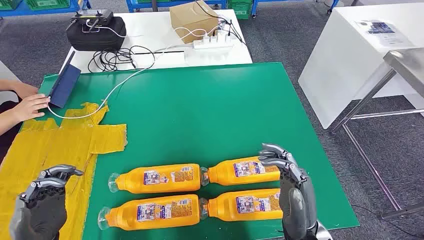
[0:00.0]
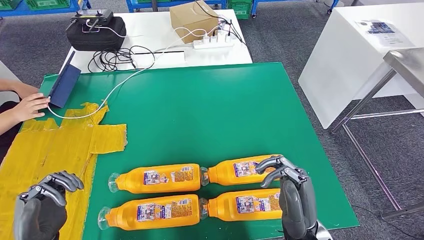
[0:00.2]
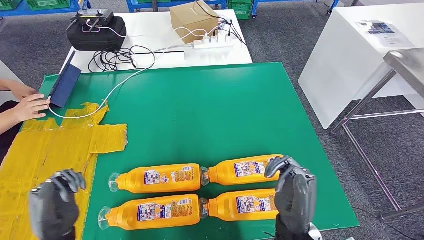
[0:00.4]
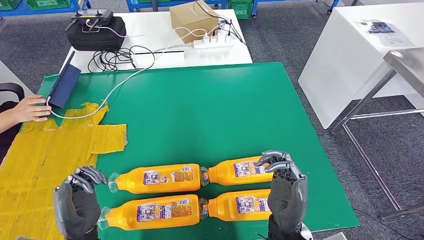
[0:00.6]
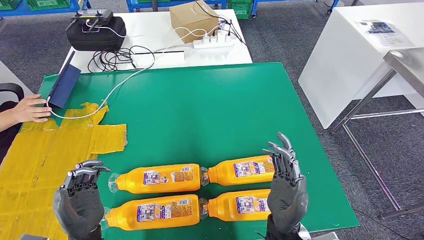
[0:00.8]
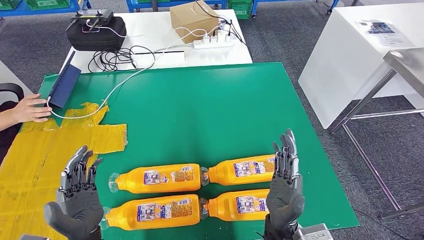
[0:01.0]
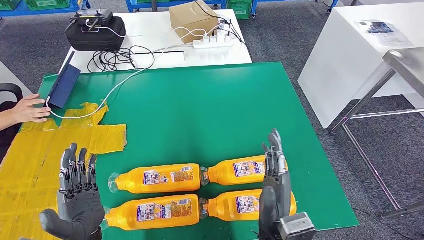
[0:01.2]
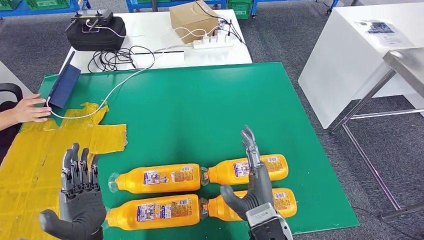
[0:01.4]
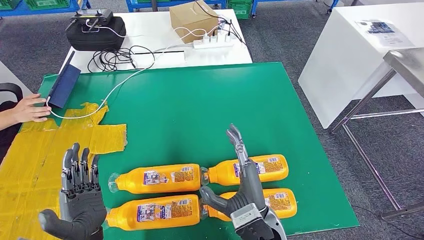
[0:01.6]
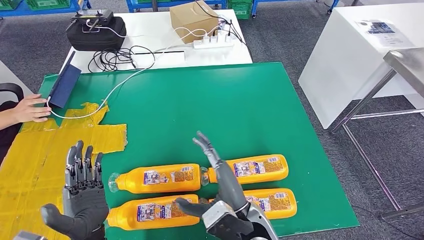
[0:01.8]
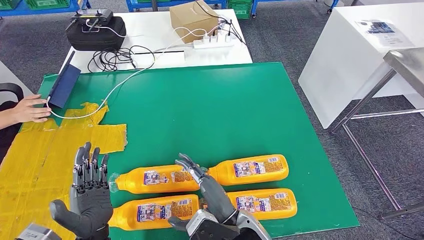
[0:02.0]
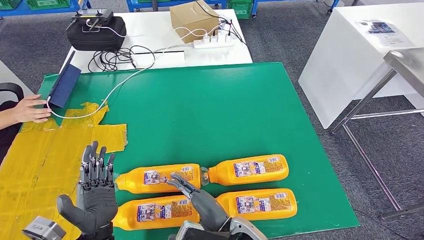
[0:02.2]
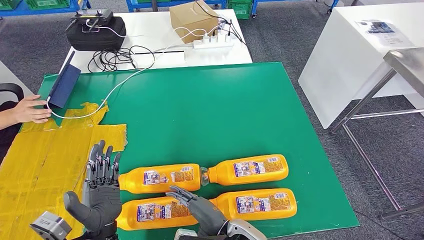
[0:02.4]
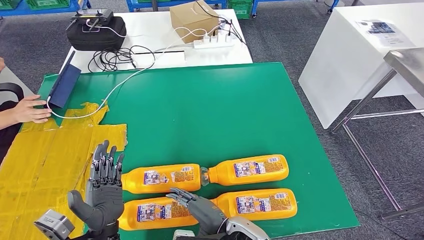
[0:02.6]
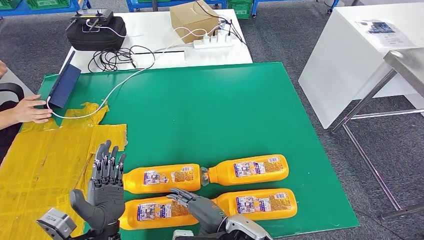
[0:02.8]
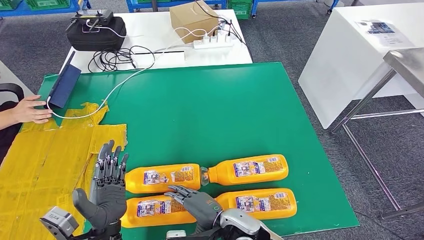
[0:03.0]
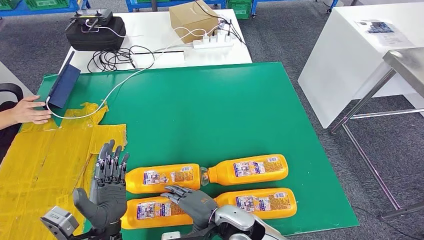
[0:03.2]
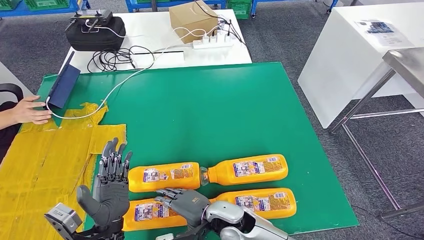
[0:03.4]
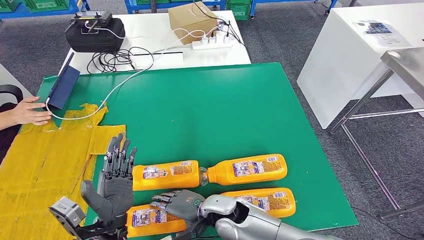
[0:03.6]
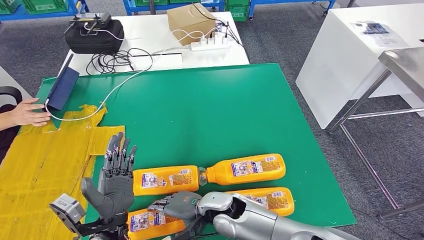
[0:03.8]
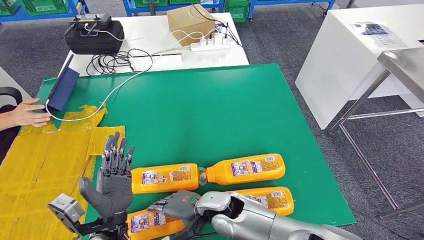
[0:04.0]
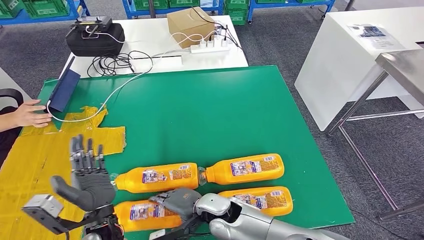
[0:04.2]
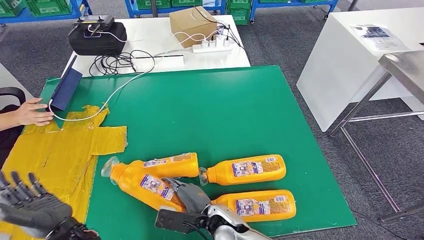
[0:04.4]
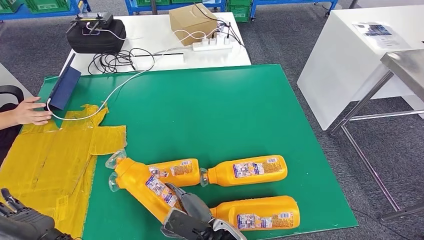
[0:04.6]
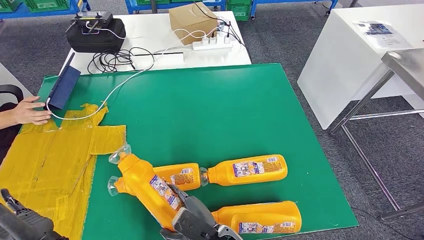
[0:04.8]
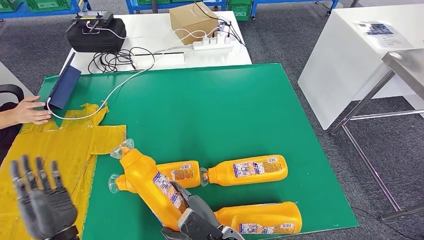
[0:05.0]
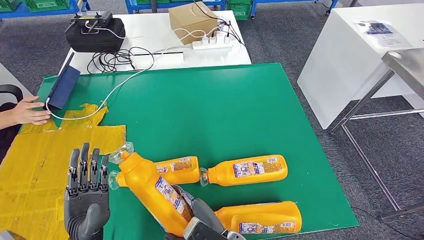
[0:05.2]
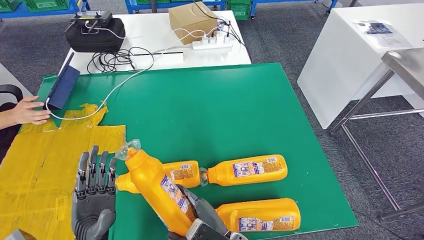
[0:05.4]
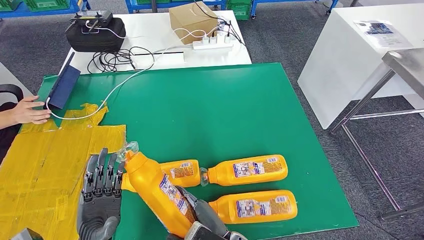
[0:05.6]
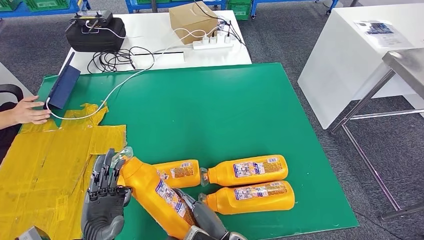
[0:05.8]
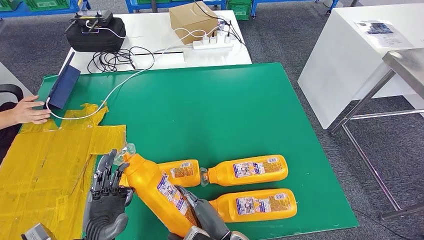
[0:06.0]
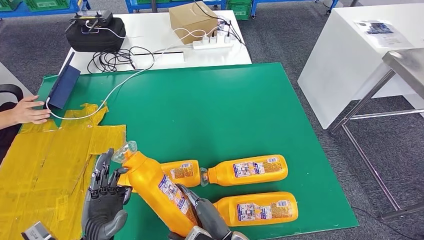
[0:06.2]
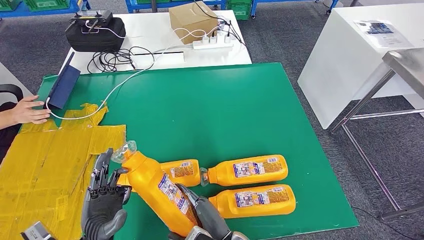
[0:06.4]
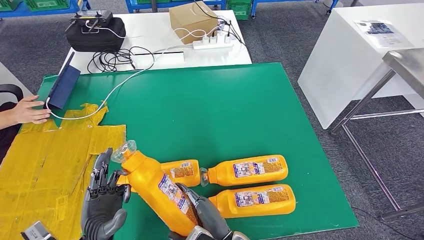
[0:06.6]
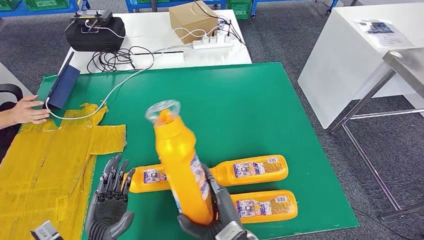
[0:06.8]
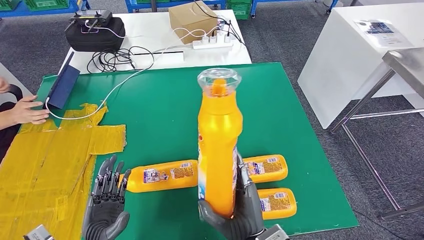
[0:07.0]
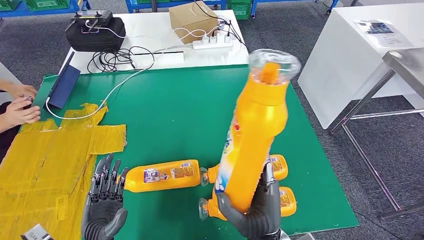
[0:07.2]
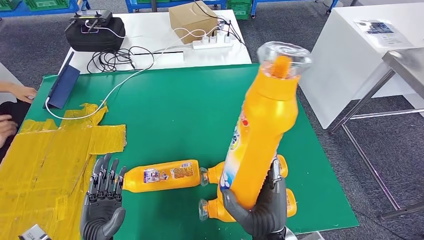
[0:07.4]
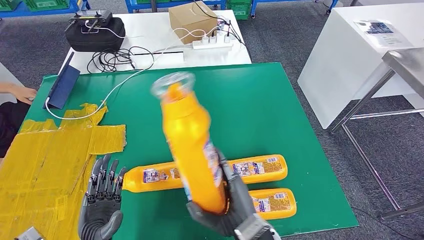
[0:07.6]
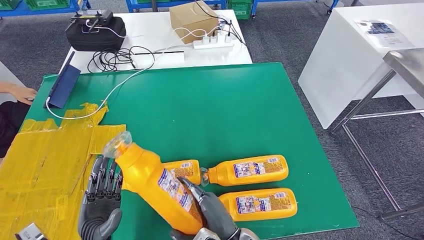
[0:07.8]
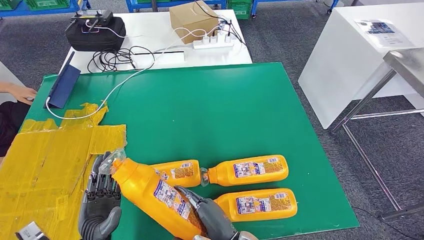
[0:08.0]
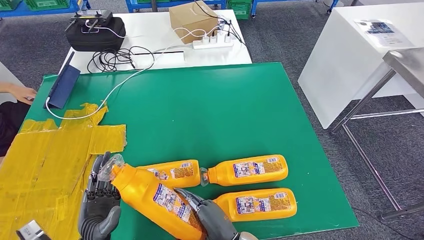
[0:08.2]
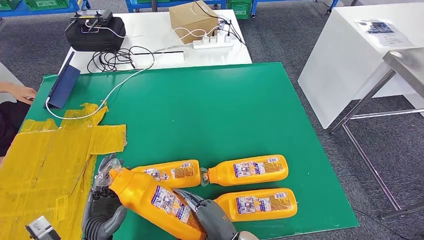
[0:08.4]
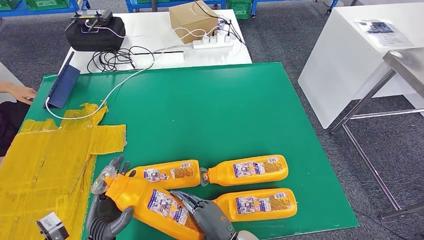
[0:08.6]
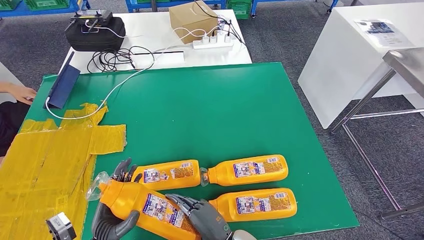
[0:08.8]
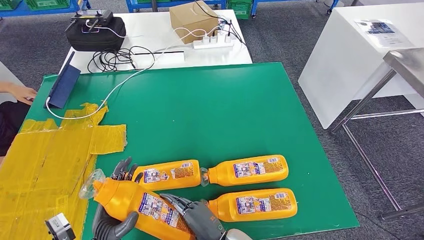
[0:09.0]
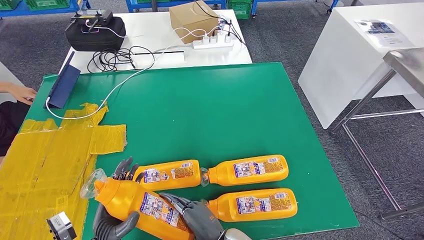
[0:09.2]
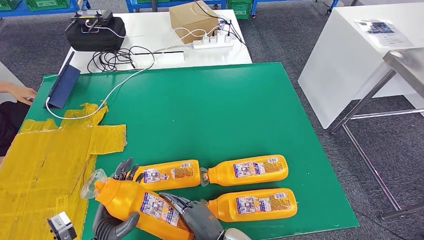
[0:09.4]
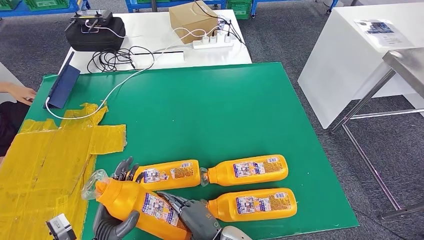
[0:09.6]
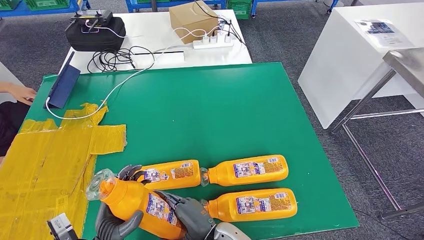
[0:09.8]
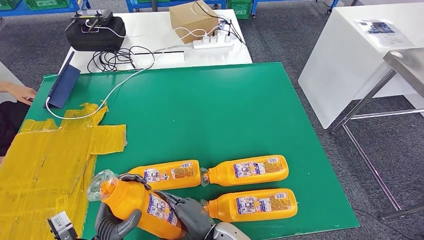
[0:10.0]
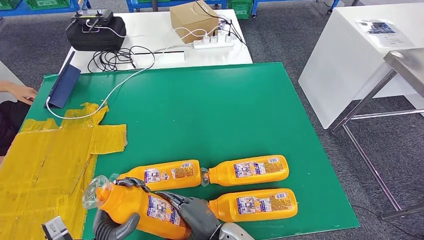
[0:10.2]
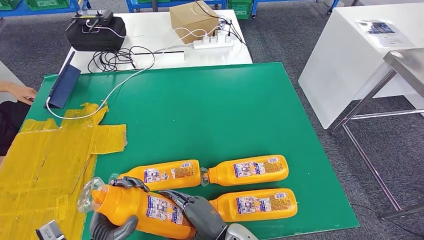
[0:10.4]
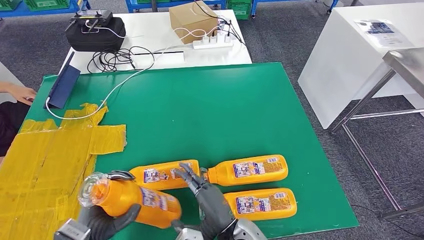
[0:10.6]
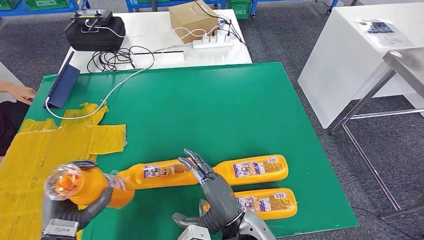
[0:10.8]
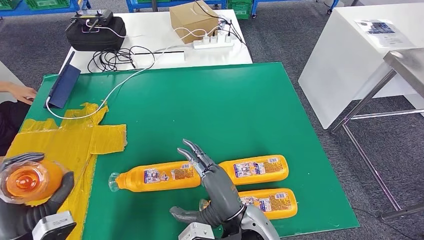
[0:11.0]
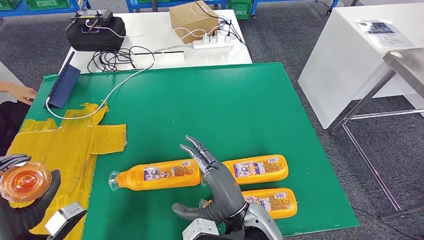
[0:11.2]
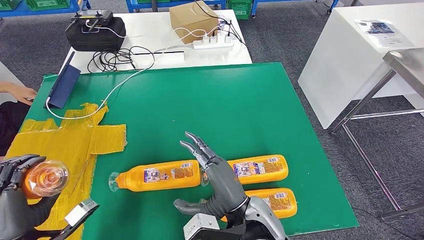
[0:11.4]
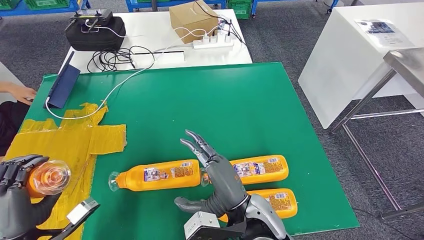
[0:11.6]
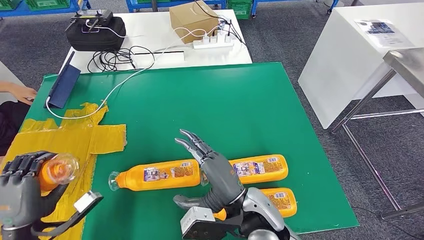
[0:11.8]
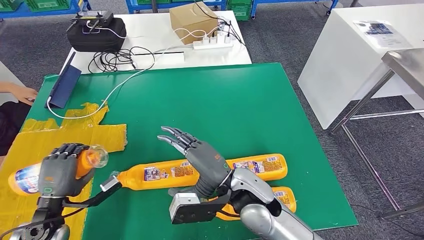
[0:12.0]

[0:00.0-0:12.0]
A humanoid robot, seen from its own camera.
Step, 0:00.0 to 0:07.2: Take the fast-moving consumer goods bottle from the table.
0:01.6 to 0:03.0: The right hand travels downward by roughly 5 cm.
0:06.0 to 0:07.6: The right hand heads upward, covering roughly 10 cm.
0:07.6 to 0:09.0: The right hand heads downward, covering roughly 5 cm.
0:09.0 to 0:10.4: The hands stay close to where they were, moving slightly.

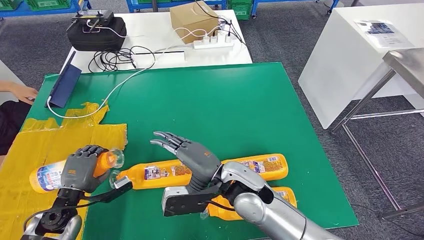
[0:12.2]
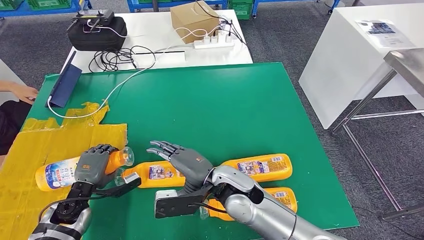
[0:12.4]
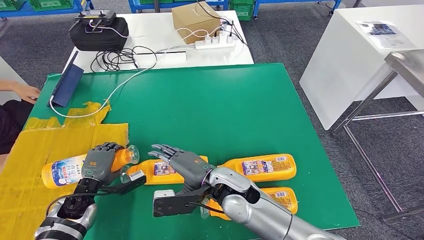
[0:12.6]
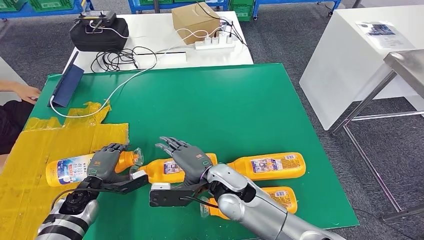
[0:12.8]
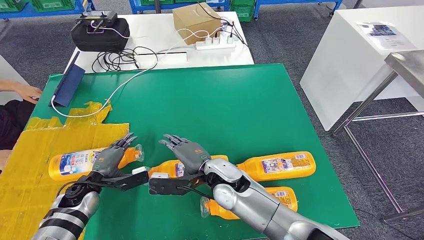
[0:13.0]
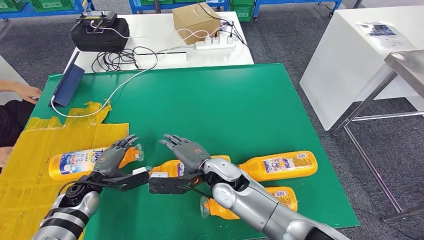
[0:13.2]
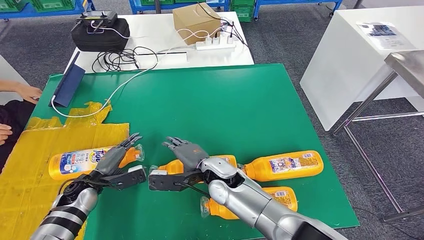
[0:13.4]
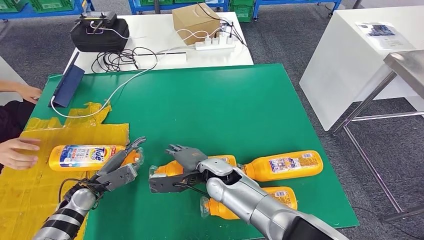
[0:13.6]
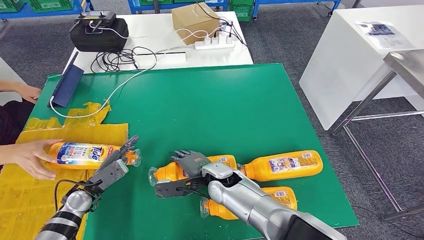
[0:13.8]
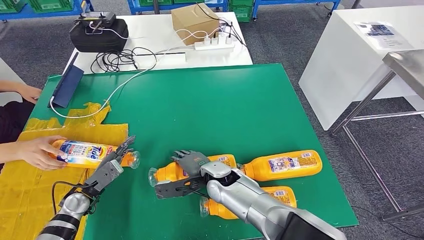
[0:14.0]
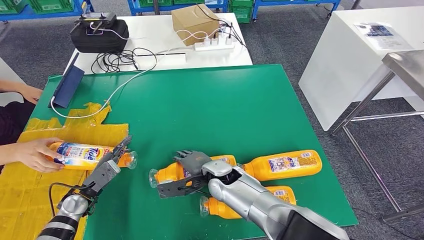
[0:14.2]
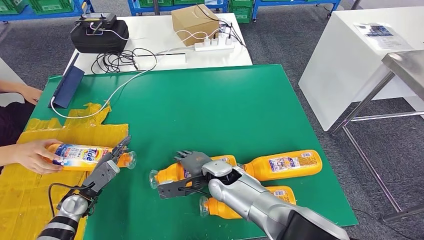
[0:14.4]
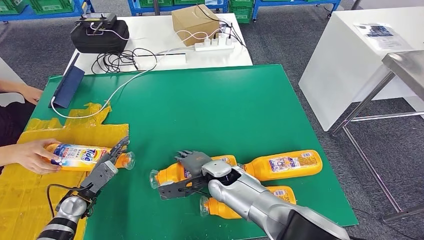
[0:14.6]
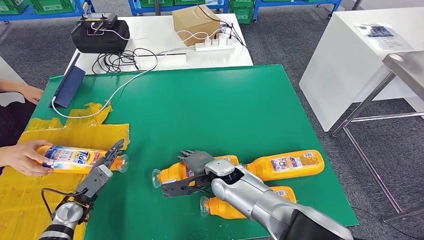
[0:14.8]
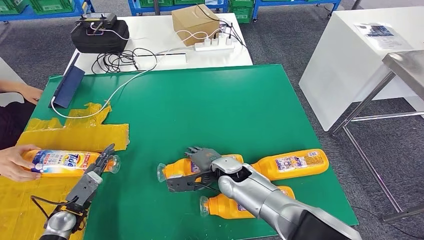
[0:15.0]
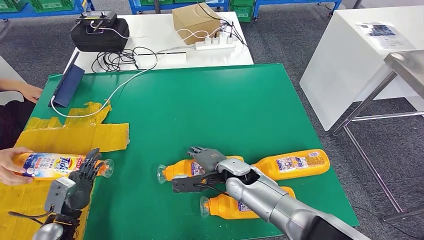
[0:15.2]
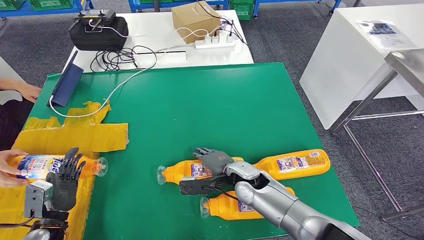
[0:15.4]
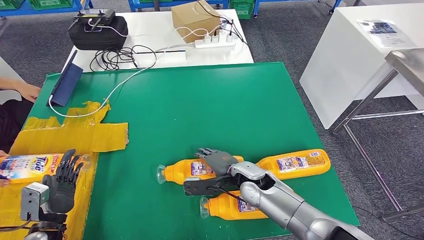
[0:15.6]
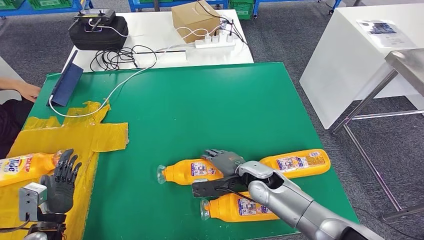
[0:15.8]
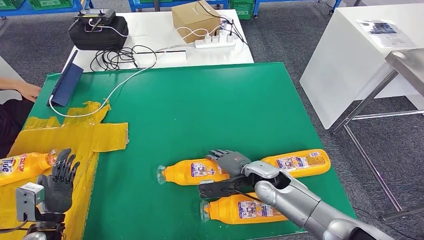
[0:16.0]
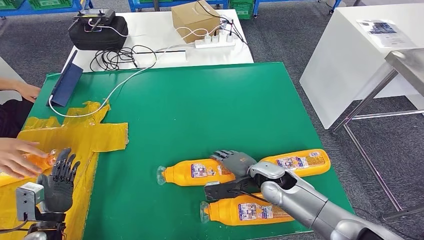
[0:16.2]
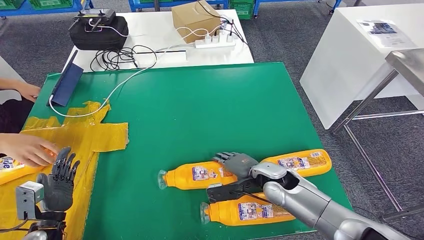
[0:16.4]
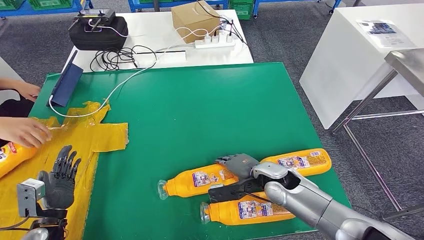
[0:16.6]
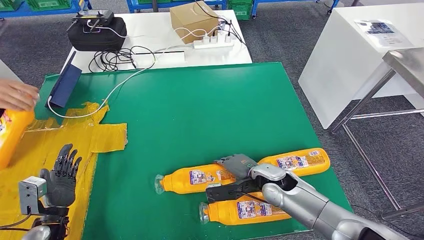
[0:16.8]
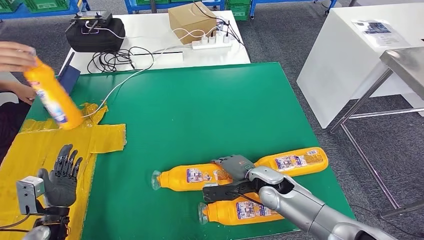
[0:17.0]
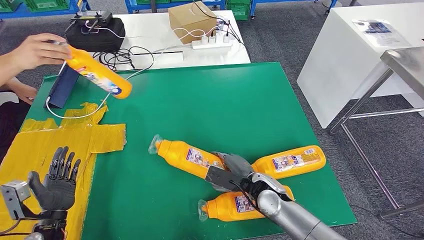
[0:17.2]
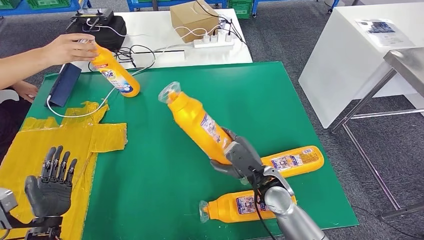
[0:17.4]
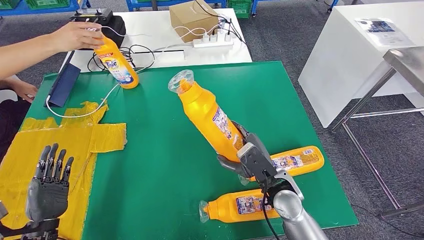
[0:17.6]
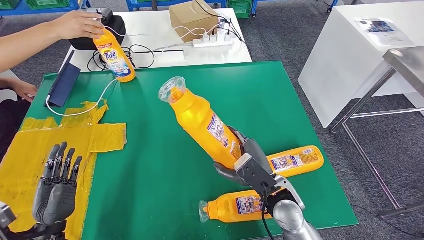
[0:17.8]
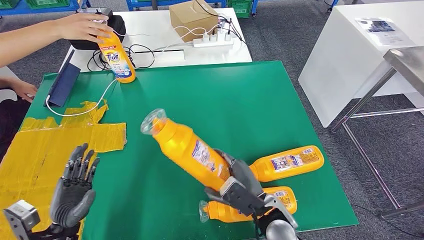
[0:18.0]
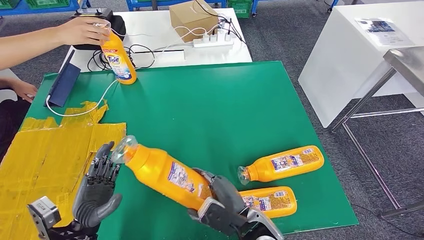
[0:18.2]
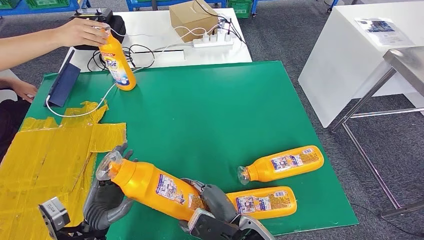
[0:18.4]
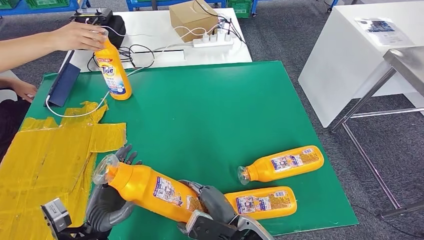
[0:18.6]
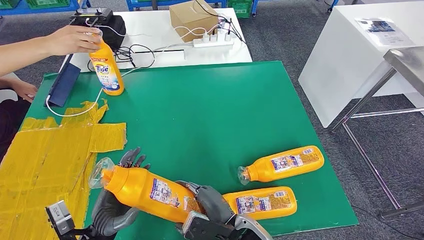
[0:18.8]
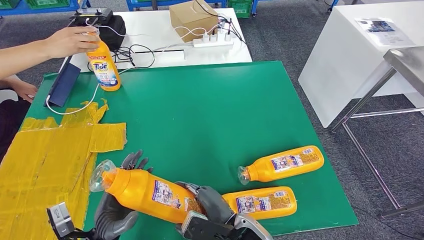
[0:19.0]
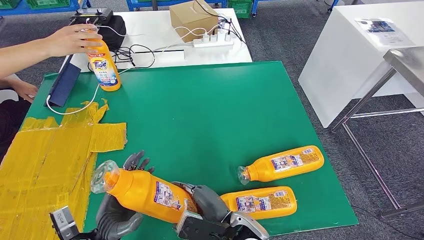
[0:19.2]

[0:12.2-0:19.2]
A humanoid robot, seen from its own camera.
0:13.6 to 0:15.0: The left hand is displaced backward by about 5 cm.
